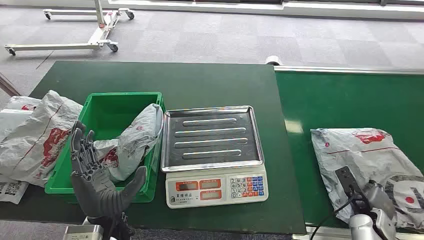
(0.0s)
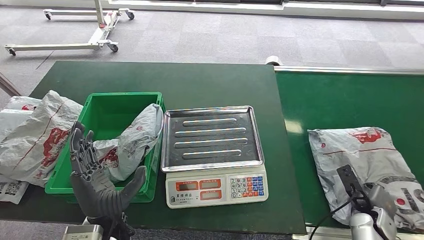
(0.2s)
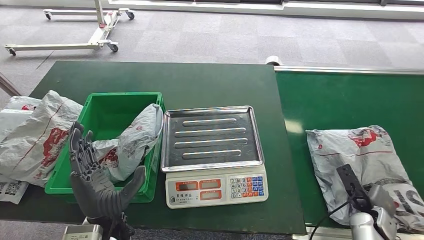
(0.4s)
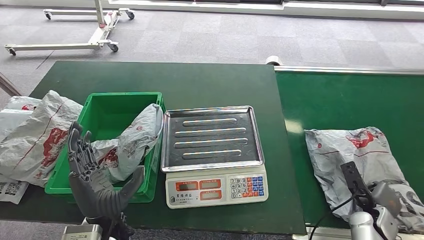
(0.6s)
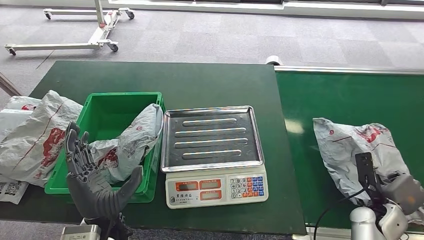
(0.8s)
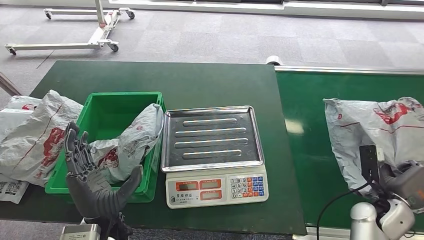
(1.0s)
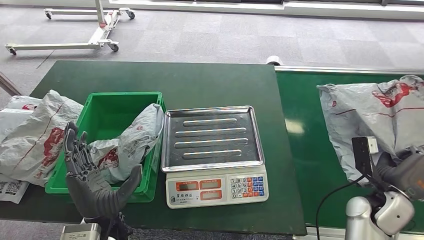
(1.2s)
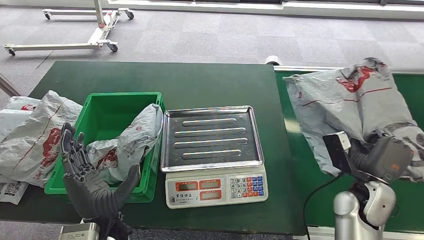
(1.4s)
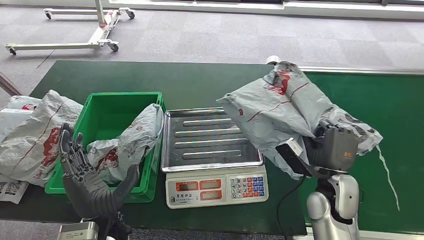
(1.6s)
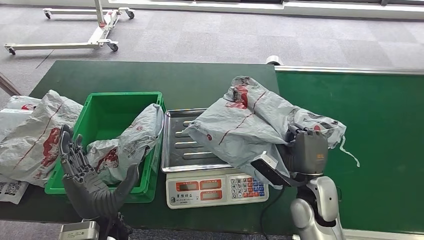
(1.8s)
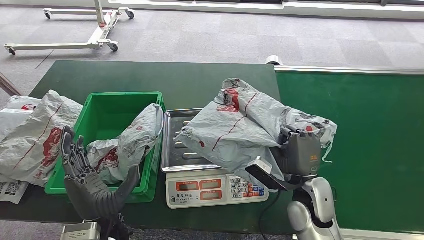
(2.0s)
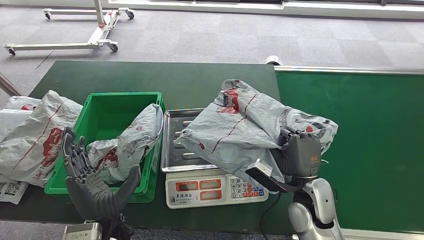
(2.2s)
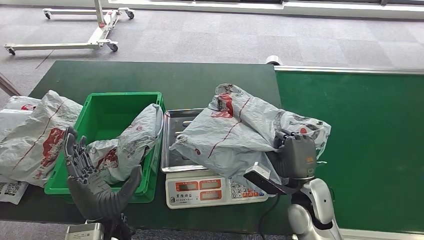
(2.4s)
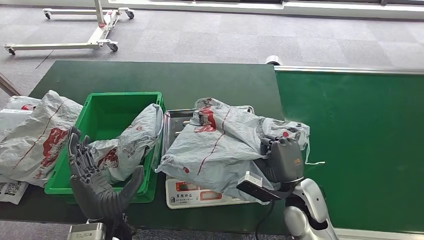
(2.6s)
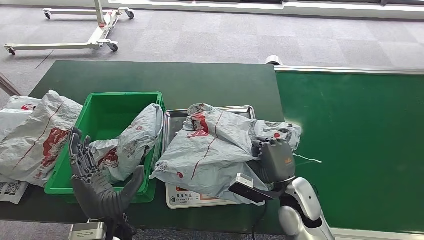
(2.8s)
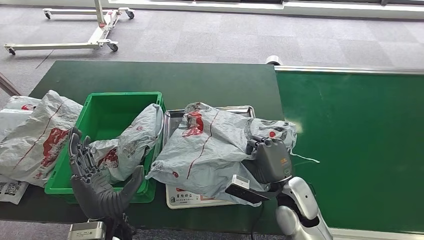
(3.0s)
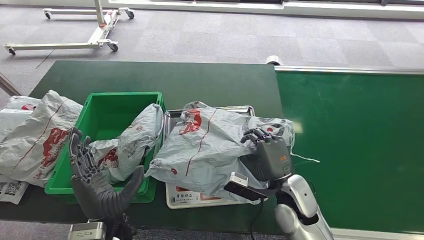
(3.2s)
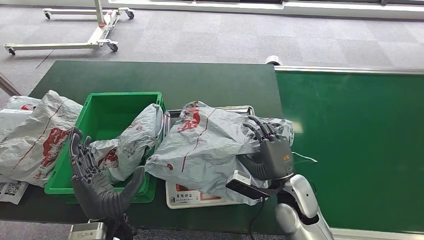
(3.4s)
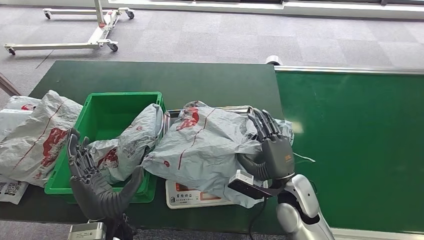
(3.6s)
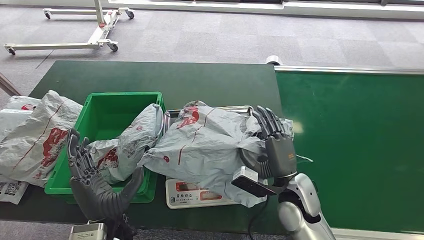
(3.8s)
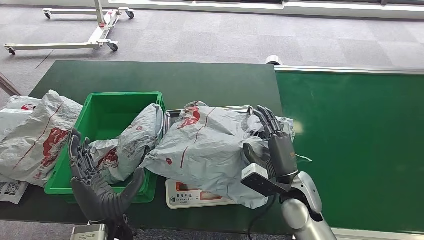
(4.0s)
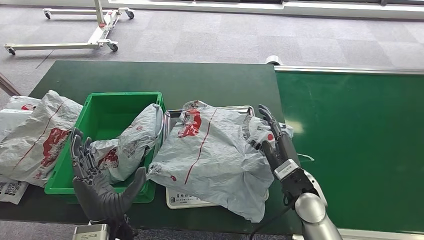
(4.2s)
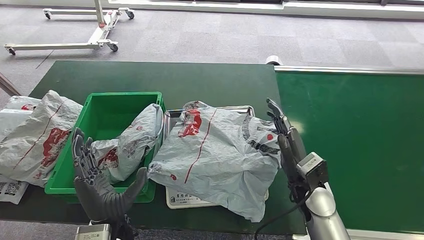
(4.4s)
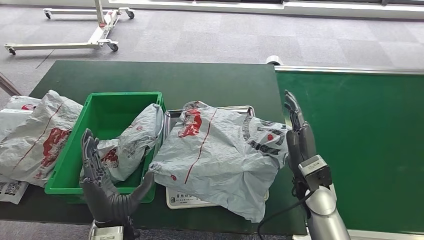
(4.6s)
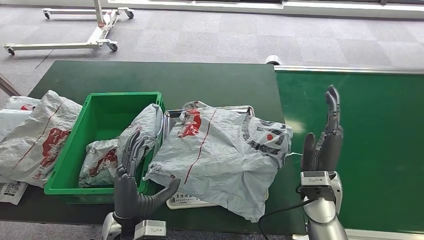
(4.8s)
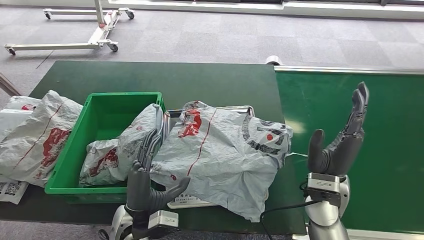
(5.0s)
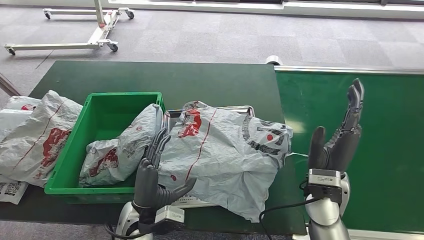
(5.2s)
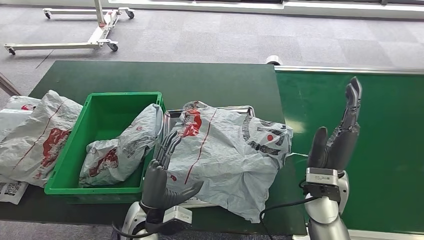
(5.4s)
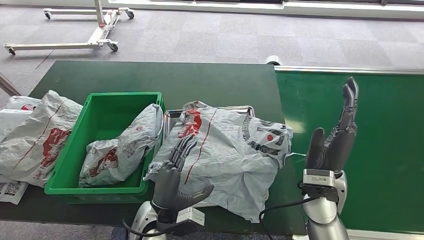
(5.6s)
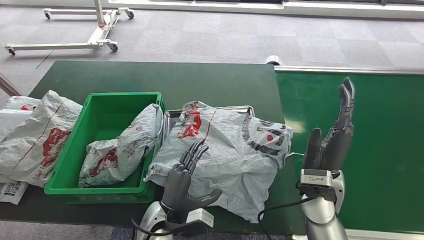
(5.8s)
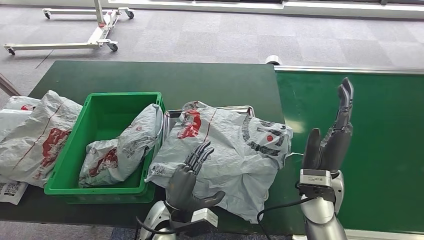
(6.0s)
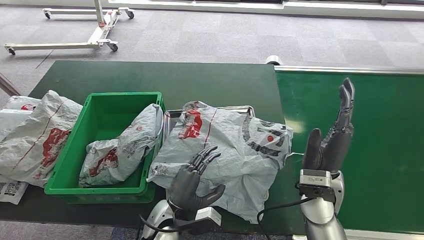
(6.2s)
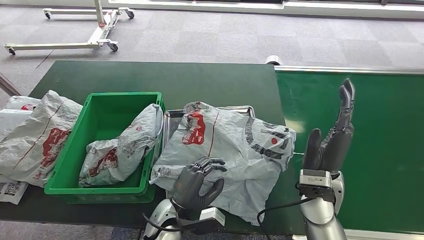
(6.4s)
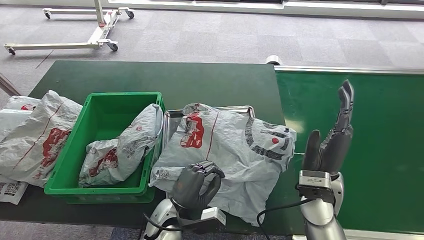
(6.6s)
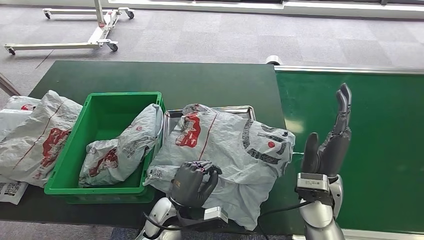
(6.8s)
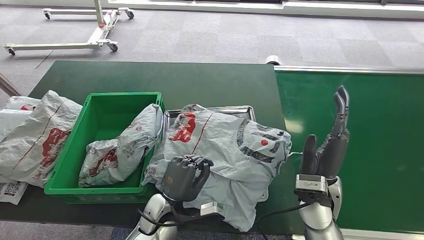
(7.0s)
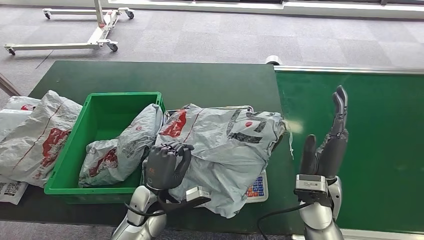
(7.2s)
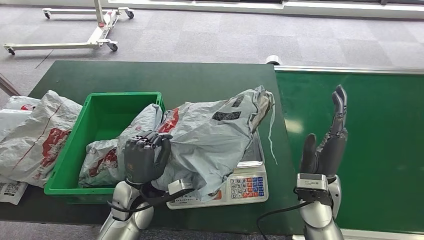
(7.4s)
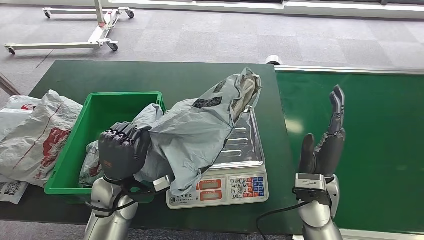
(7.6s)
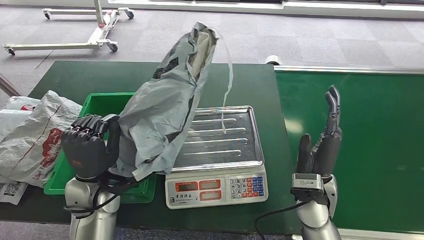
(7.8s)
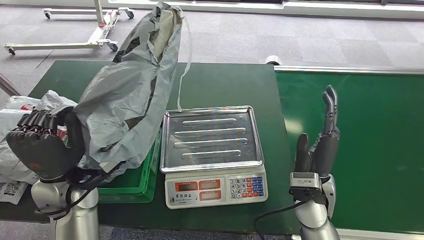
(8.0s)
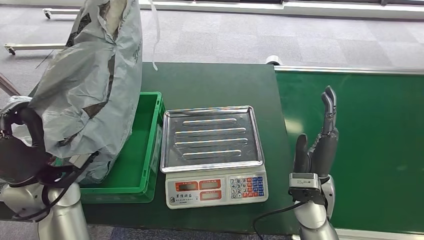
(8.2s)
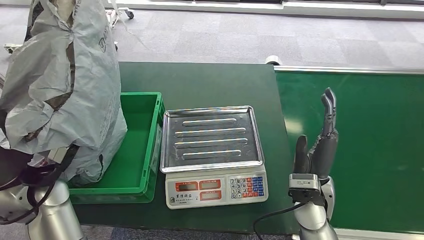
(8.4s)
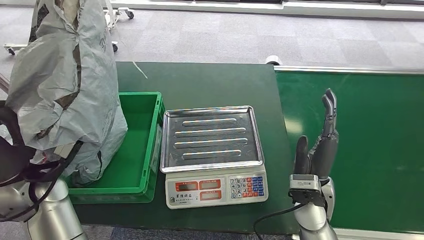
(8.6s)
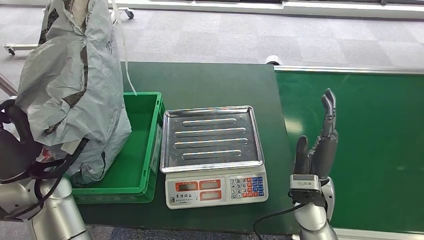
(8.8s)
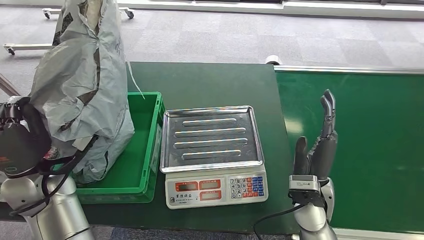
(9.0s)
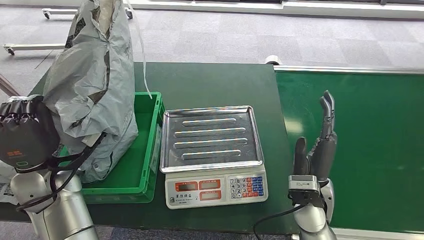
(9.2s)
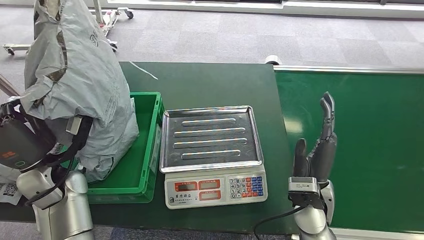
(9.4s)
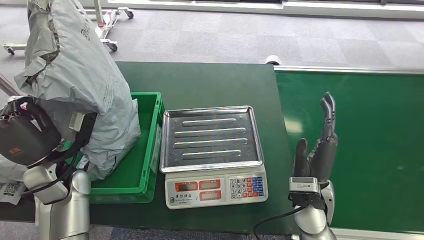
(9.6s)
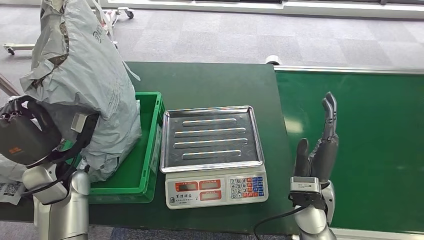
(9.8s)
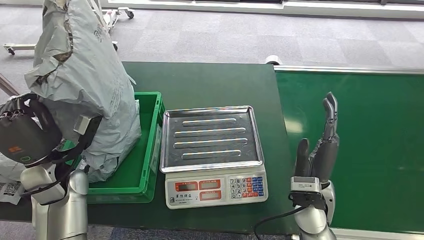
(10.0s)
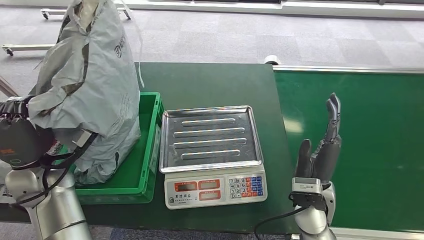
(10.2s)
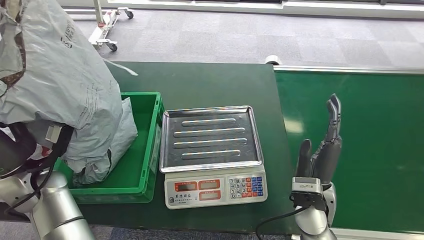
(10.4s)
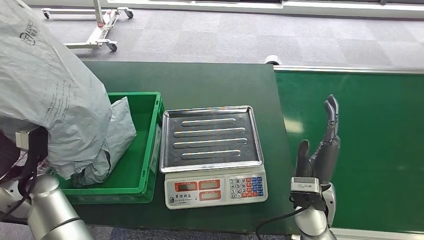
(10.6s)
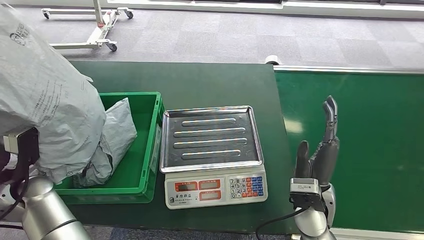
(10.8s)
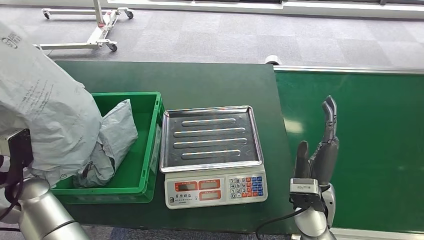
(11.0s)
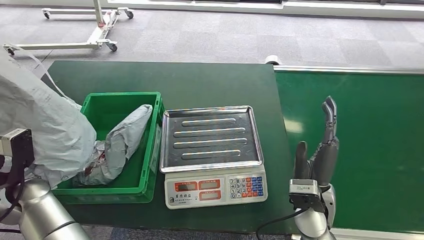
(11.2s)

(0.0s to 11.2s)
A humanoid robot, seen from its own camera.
Step, 0.0s - 1.6s: Pick up the package from the conveyor belt.
Step, 1.8s - 5.4s: Place the package onto the inbound machine.
Step, 5.6s - 8.4s: Pick up the package from the inbound machine.
Step, 8.6s - 11.2s: Place the package into the parcel locker.
3.2s - 4.8s: The right hand changes place by approximately 5 cm.
4.8s - 6.4s: The left hand shifts roughly 10 cm to the right and downward.
